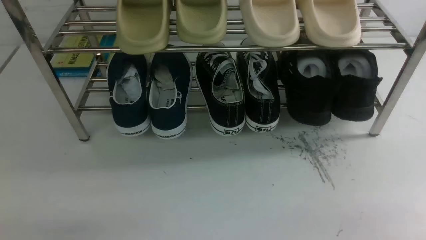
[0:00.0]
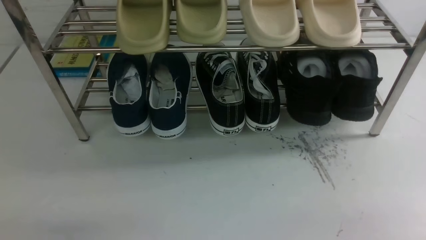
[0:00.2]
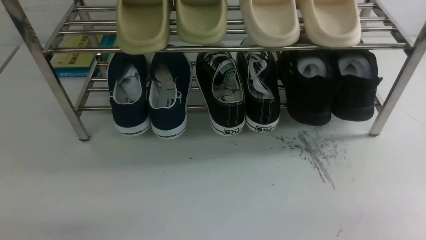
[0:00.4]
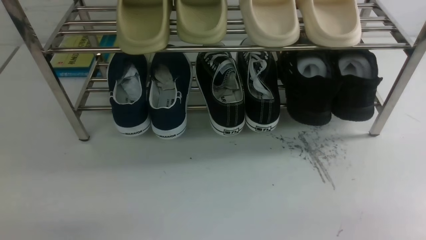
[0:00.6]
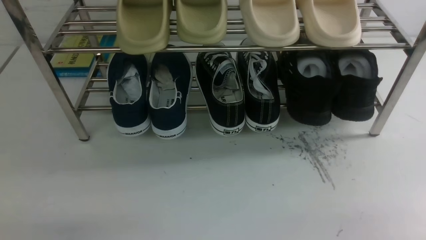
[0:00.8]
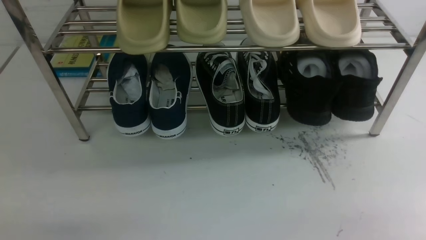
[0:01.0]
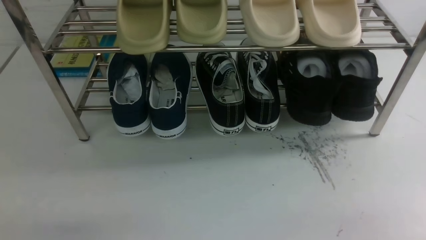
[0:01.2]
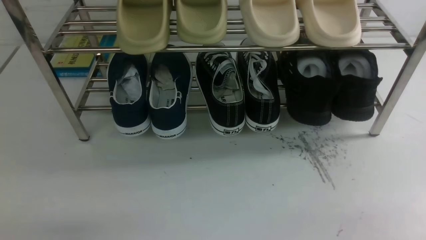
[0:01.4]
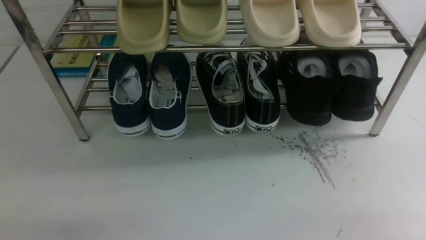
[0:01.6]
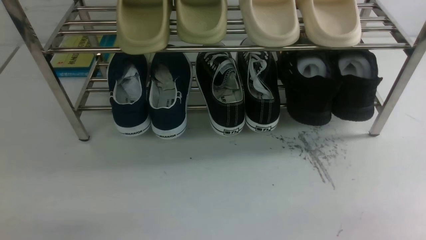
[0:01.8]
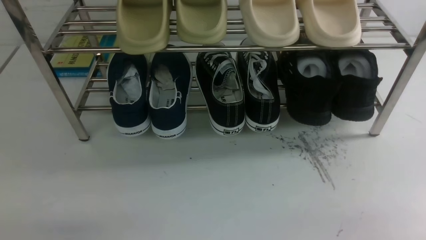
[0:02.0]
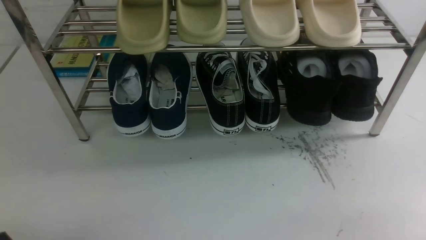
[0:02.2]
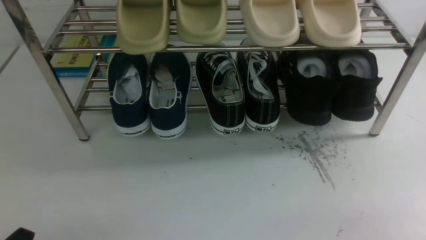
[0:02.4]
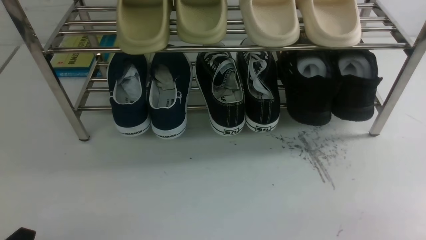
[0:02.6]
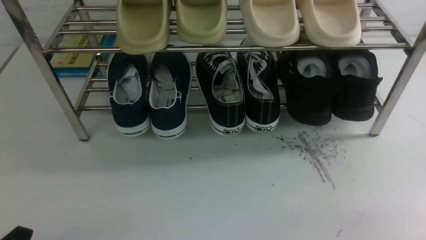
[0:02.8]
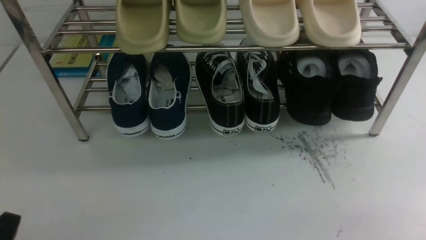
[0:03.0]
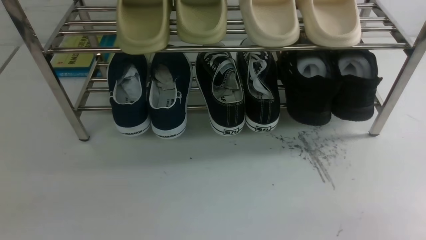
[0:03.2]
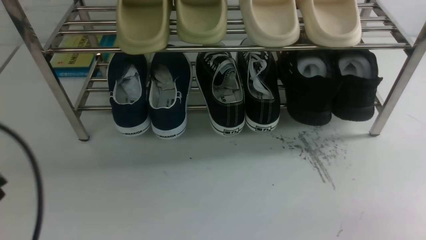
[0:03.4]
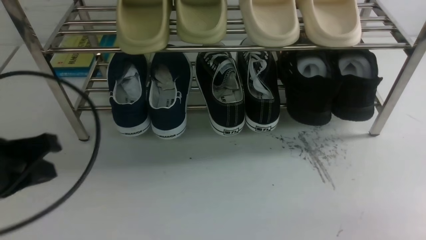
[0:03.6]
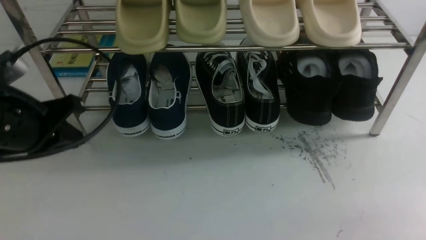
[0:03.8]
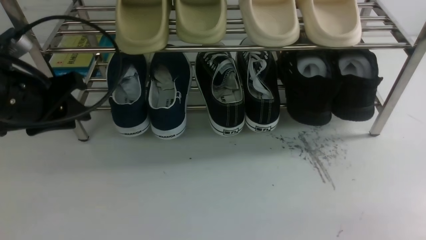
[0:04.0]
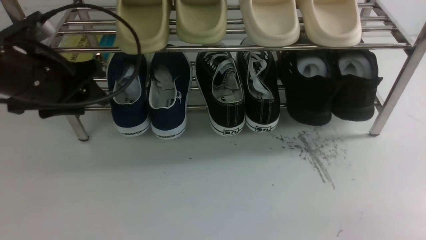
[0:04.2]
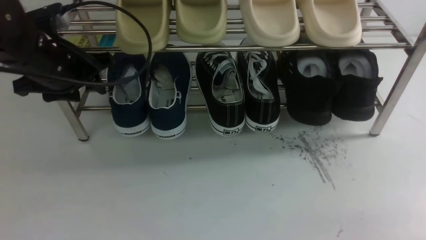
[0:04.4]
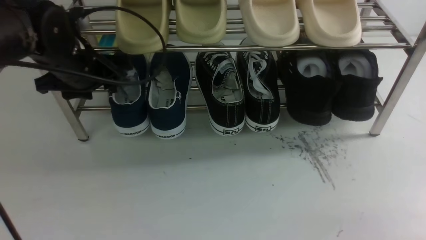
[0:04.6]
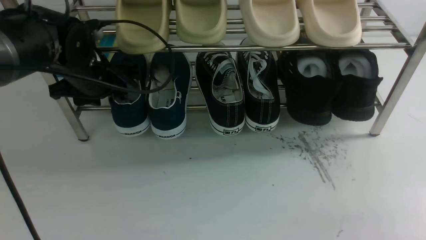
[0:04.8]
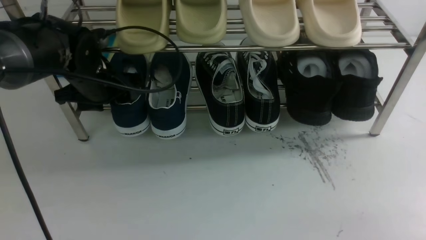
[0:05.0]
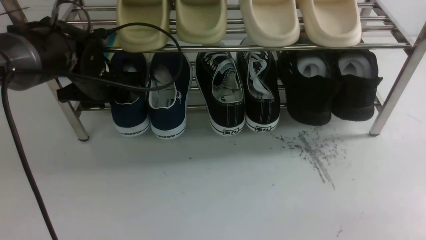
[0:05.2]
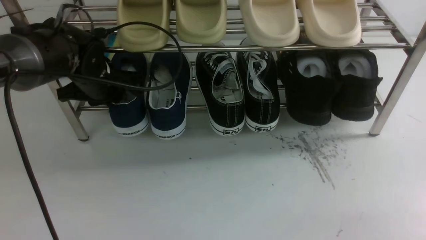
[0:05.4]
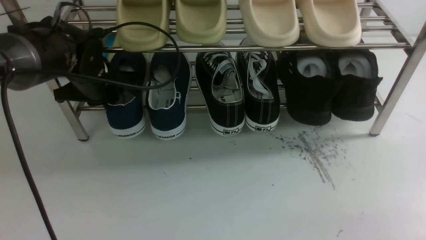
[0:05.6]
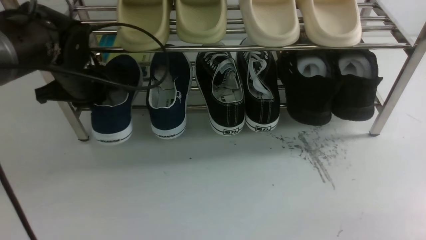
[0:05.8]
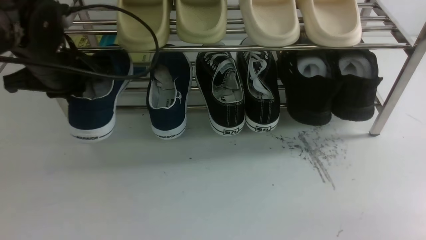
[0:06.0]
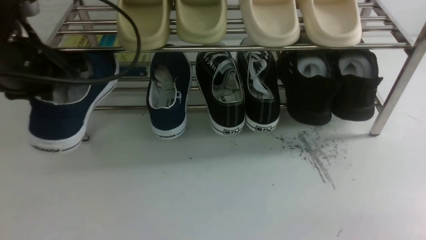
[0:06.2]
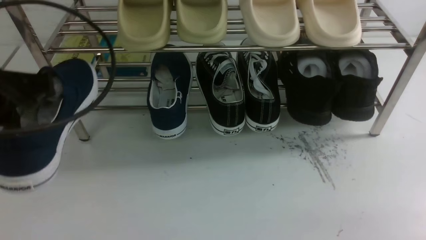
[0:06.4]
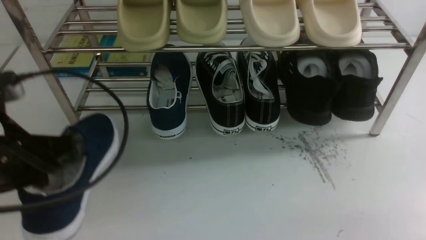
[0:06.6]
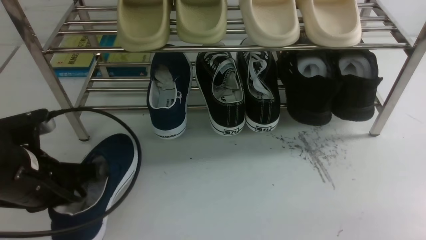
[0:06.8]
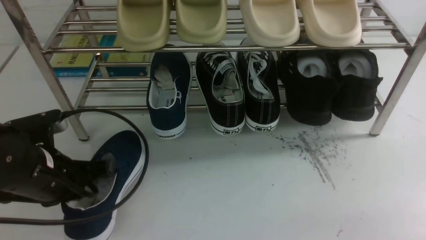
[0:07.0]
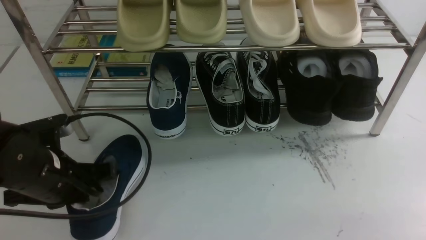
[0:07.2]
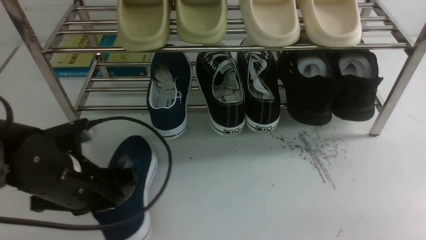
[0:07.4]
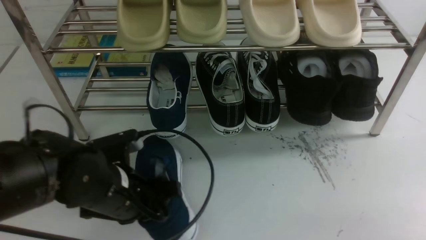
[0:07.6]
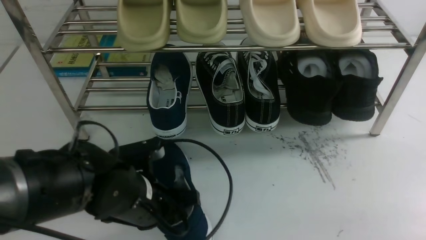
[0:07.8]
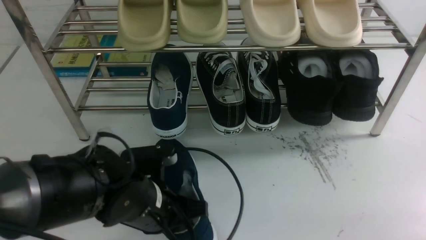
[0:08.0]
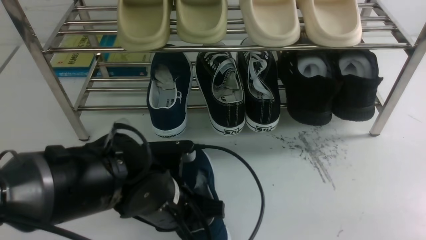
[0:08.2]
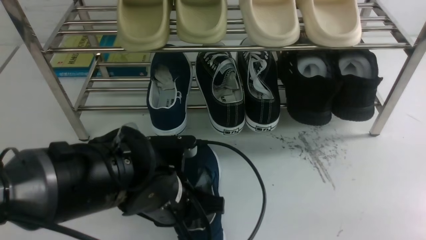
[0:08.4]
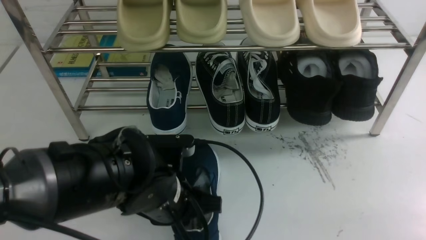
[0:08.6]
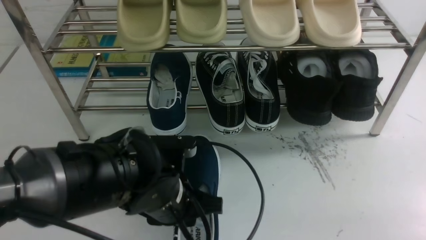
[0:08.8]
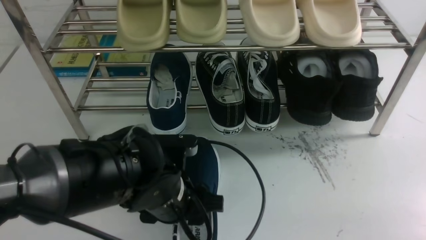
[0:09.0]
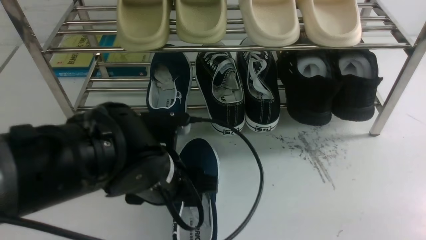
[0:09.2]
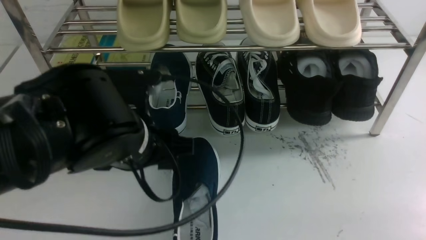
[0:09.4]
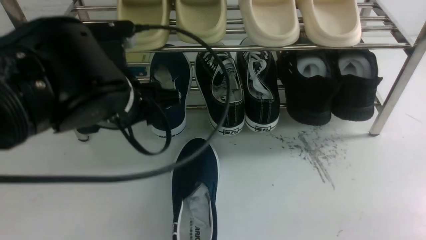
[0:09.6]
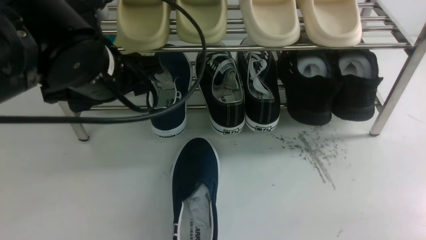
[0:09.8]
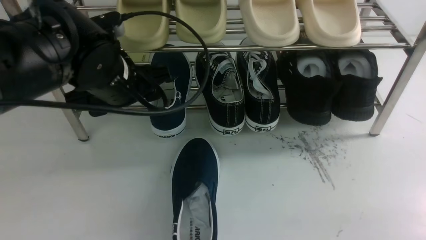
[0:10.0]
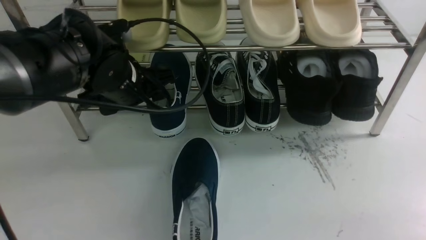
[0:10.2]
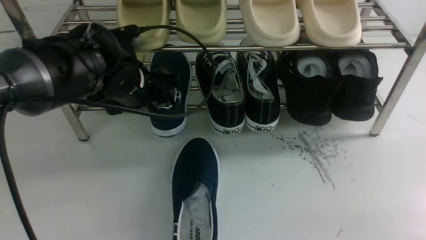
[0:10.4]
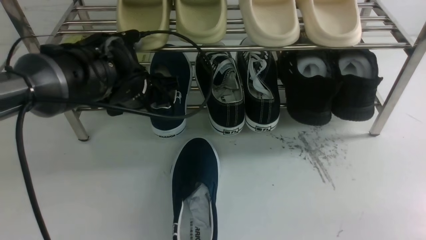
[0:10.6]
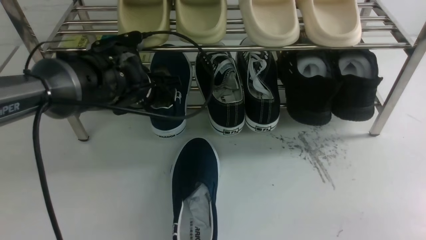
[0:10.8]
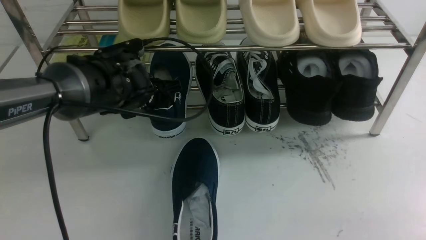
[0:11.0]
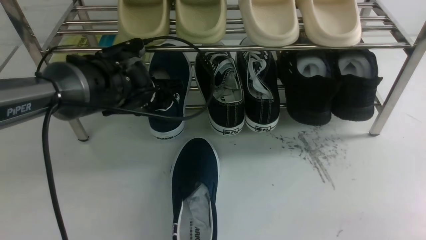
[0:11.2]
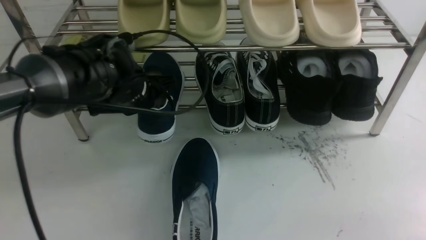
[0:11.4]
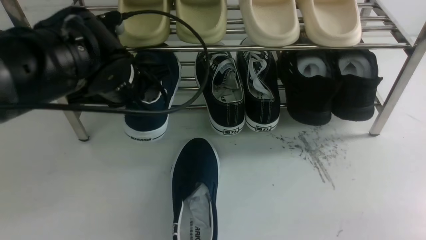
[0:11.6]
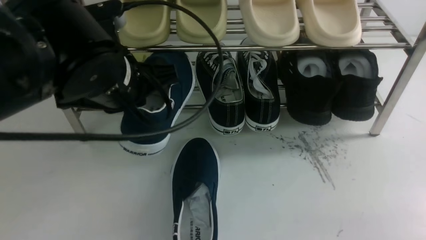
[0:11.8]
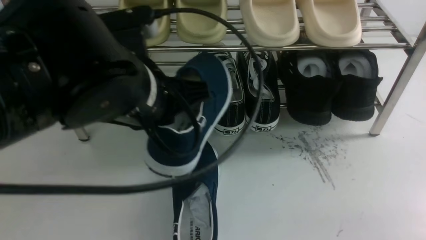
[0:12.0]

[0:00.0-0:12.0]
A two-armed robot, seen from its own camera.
Step, 0:00.0 to 0:05.8: use the left arm to clamp a shoe on the left side of the shoe rack.
Step, 0:06.0 to 0:09.2: Use your left arm to remove the clamped shoe from the shoe rack and put it down.
Step, 0:09.4 to 0:11.6: use the left arm to clamp a shoe on the left side of the shoe rack.
0:00.0 to 0:01.6: Both grippers stay about where they are.
0:03.0 to 0:04.4: The left gripper shifts some 30 cm forward, and opens its fingers.
0:04.4 to 0:06.0: The left gripper reaches roughly 5 cm downward, then returns, and closes up.
0:06.0 to 0:07.6: The left gripper shifts about 20 cm downward, backward and to the right.
0:07.6 to 0:09.0: The left gripper travels to the right by about 5 cm, and opens.
0:09.0 to 0:10.4: The left gripper goes approximately 15 cm forward and to the left.
0:10.4 to 0:12.0: The left gripper heads backward, upward and to the right, covering about 15 cm, and closes up.

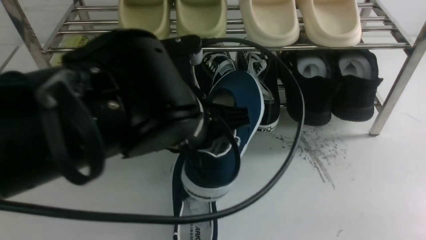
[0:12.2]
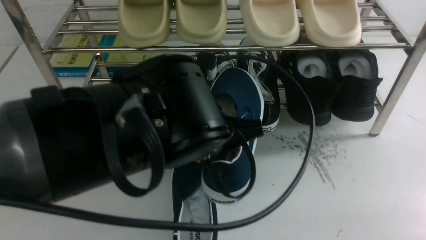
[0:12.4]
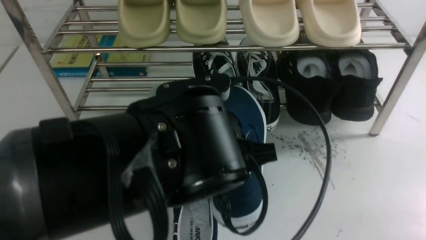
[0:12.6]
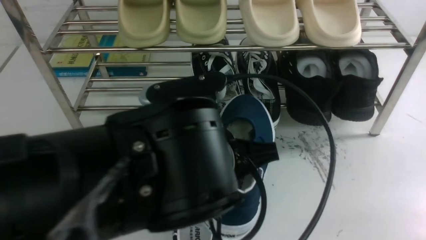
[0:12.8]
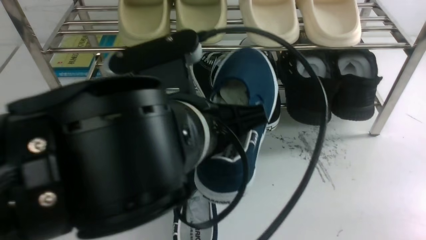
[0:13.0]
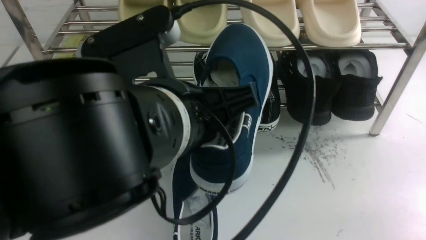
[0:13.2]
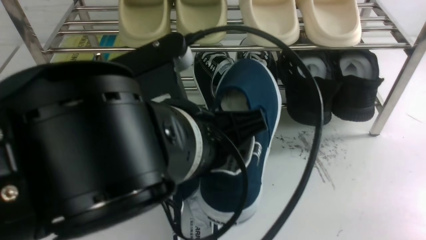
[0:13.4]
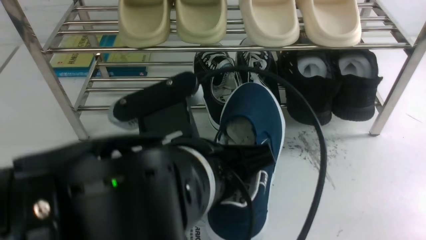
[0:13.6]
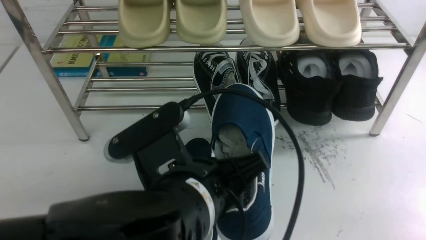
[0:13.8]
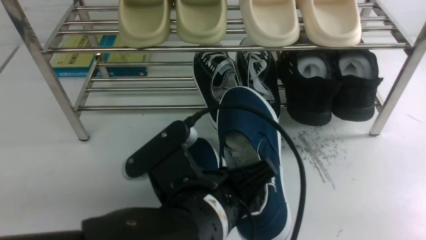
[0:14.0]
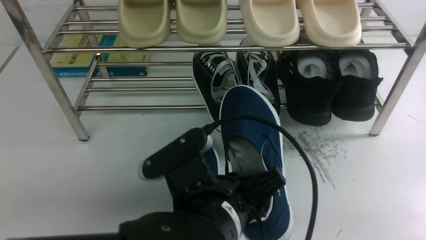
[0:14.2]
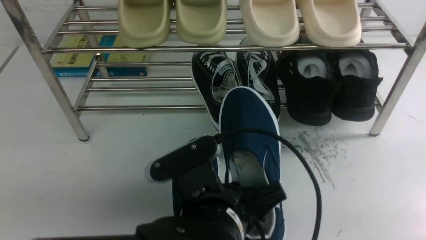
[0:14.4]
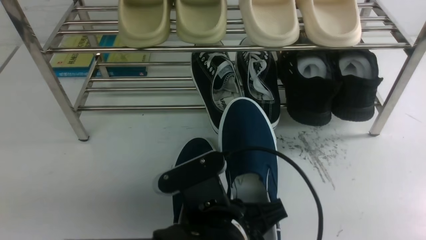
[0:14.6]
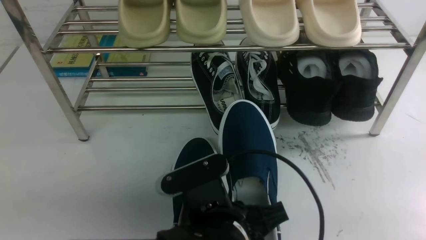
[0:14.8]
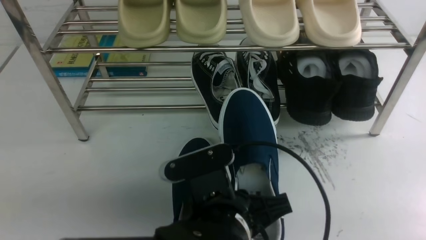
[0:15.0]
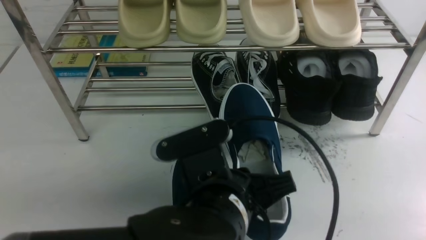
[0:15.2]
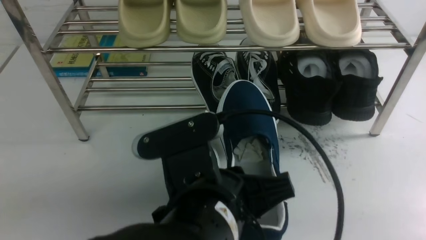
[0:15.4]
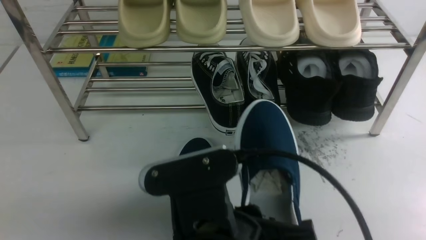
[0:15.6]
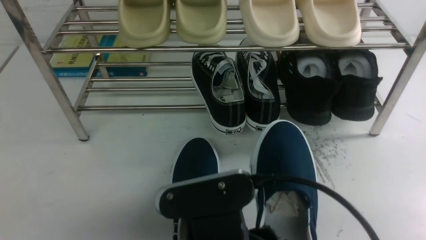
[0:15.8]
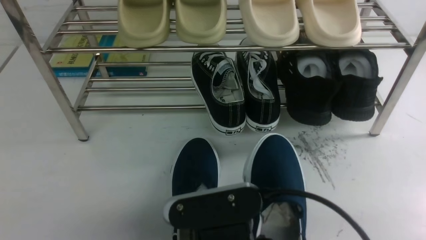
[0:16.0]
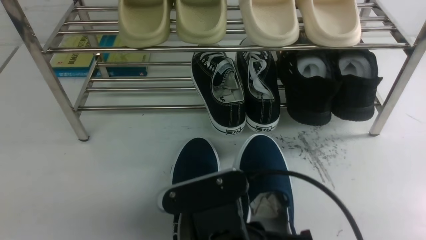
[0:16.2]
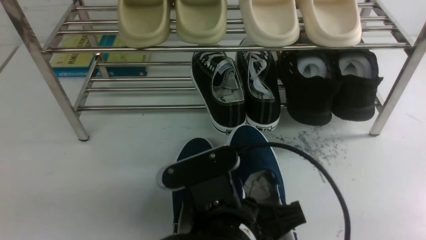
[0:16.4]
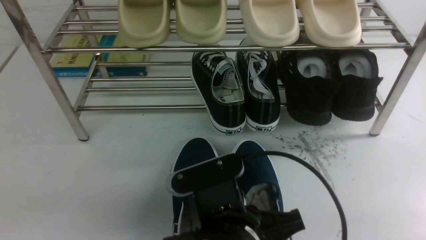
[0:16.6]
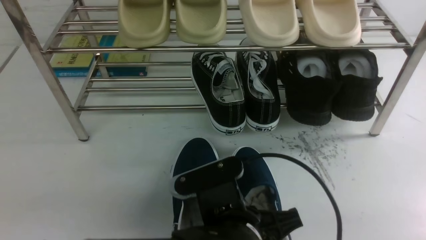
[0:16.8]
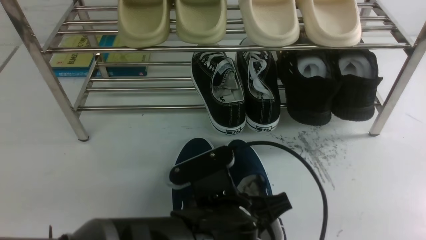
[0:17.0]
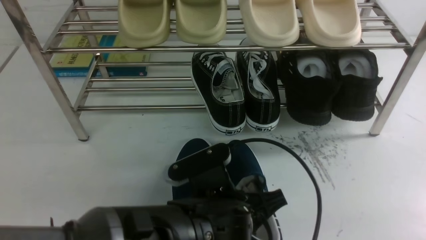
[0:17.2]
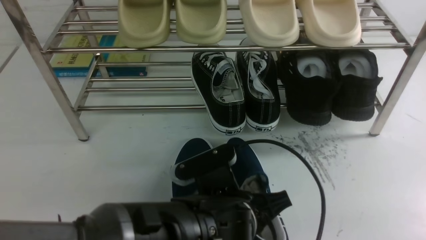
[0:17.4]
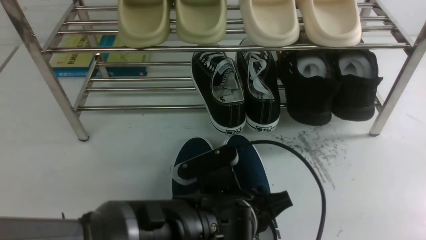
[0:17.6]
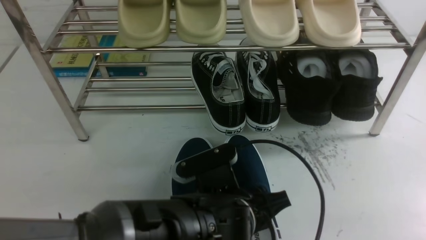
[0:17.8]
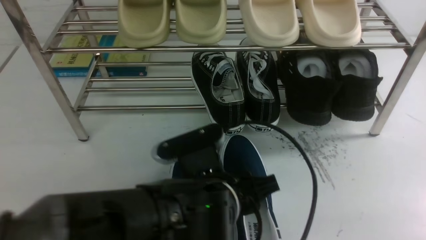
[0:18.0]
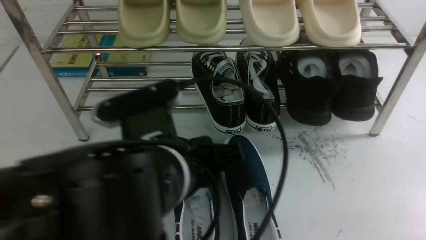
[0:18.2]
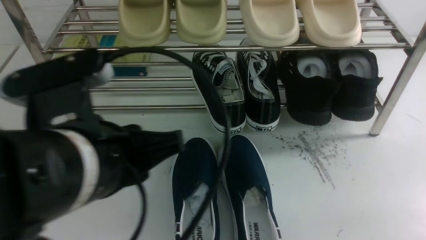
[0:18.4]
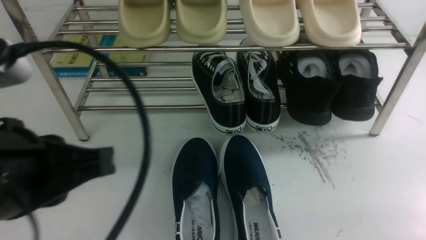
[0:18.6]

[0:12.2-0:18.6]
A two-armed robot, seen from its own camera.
Step, 0:12.2 to 0:18.0: Use your left arm to remove the clamped shoe from the shoe rack and put it down.
0:12.2 to 0:13.8: The left gripper is displaced backward by about 10 cm.
0:15.4 to 0:17.0: The left gripper is displaced downward by roughly 5 cm.
0:17.0 to 0:18.6: The left gripper is displaced to the left and upward by some 25 cm, and opens, then closes again.
